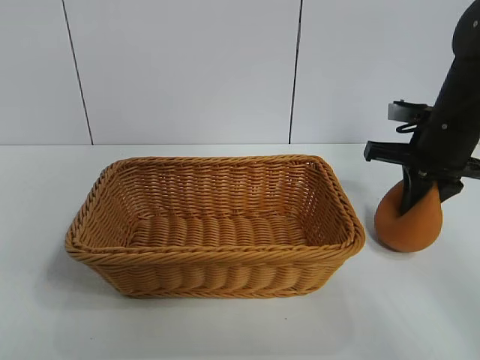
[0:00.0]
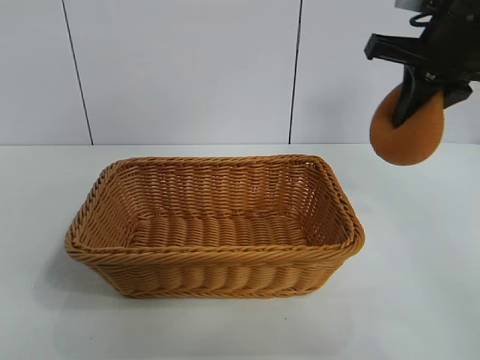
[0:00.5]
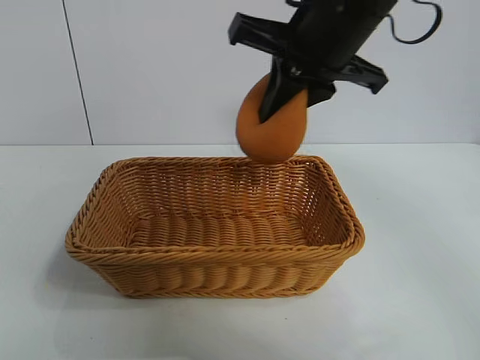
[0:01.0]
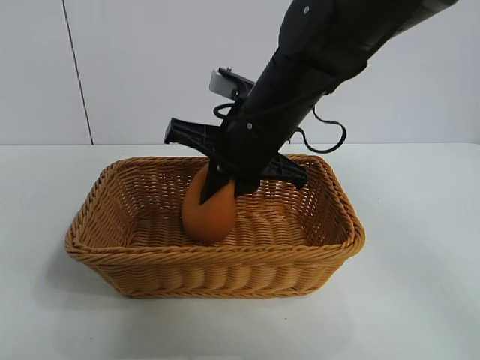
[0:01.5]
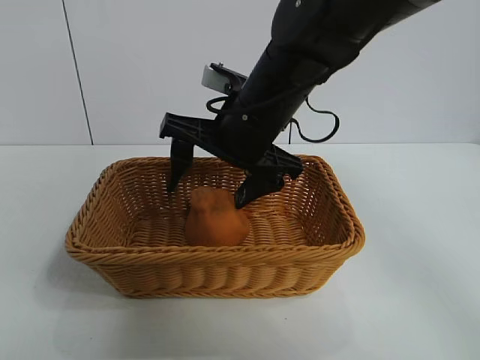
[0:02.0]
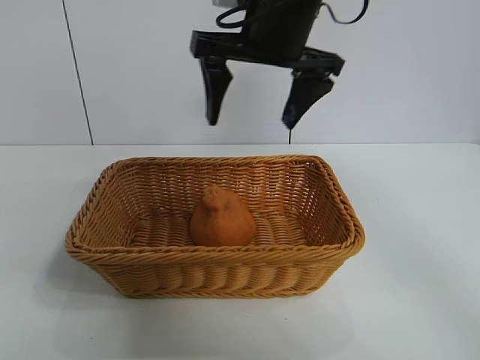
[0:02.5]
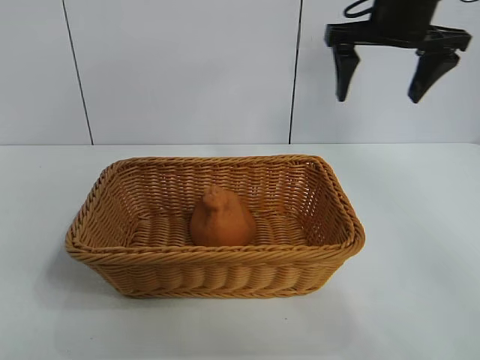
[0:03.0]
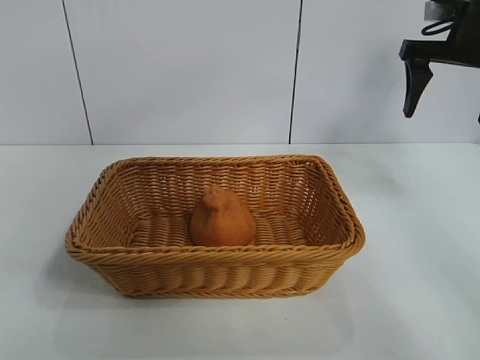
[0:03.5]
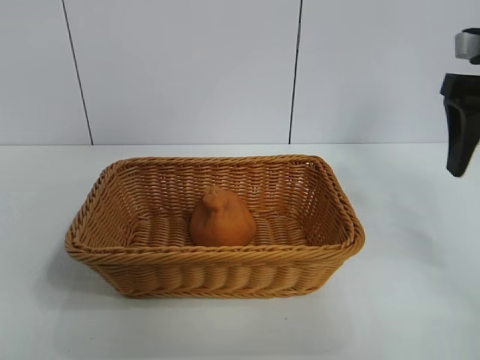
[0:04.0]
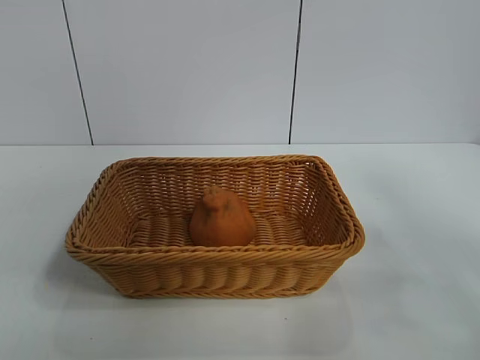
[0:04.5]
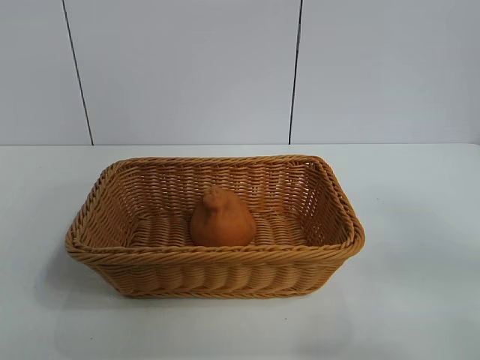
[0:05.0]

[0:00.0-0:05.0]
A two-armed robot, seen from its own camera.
Task of the whole recording: pick up the orange and put it into the basket.
Step, 0:00.5 to 0:02.0: Place the orange in the basket with right gripper.

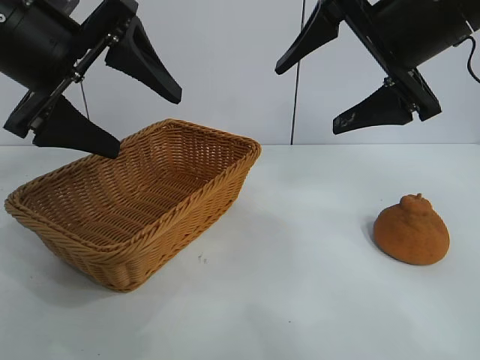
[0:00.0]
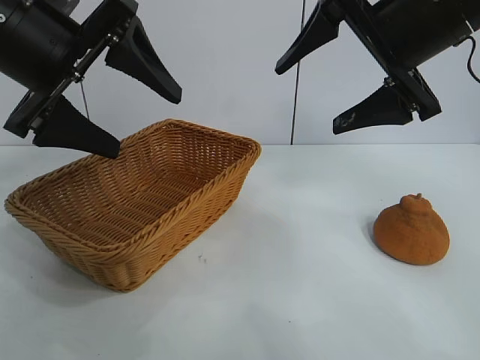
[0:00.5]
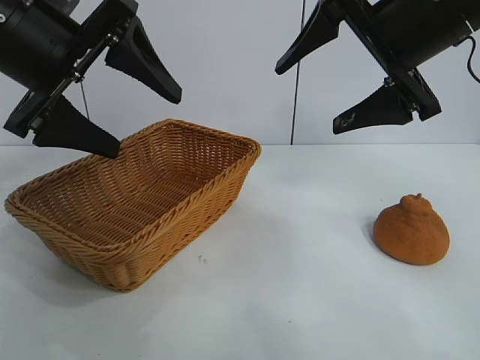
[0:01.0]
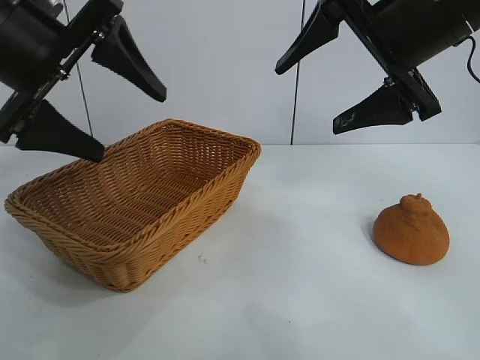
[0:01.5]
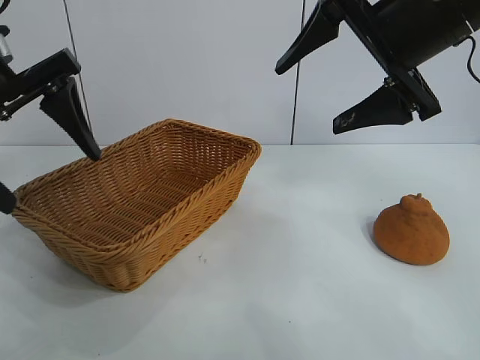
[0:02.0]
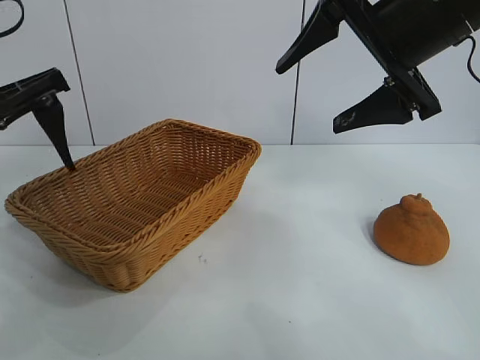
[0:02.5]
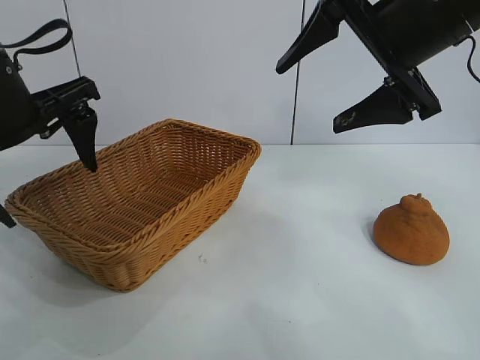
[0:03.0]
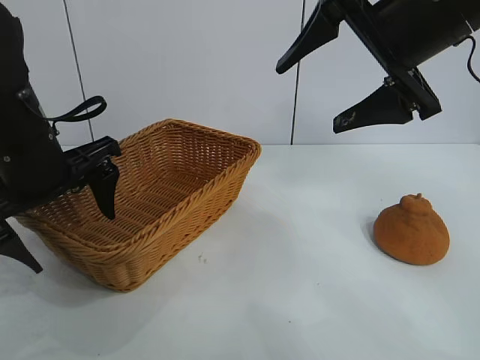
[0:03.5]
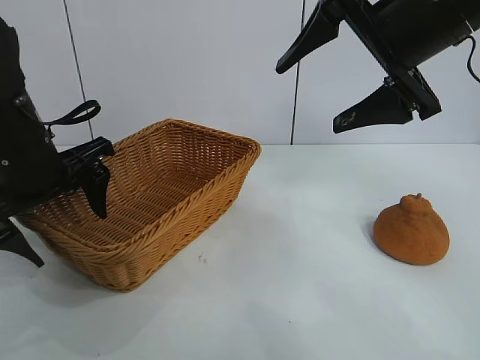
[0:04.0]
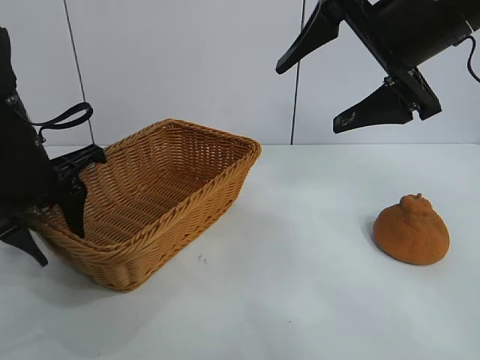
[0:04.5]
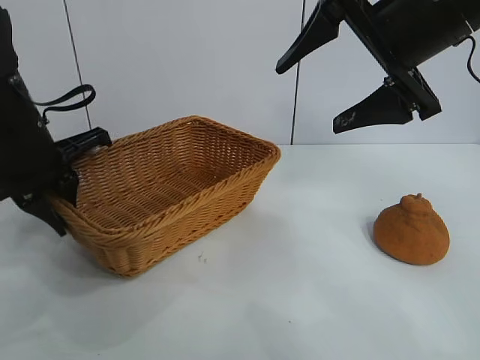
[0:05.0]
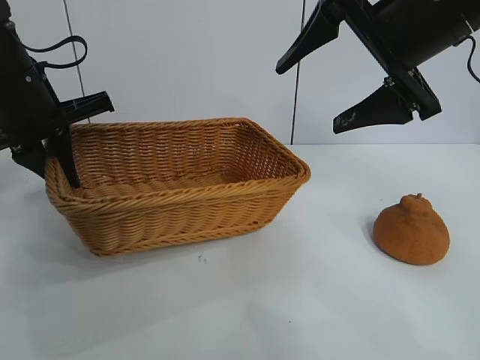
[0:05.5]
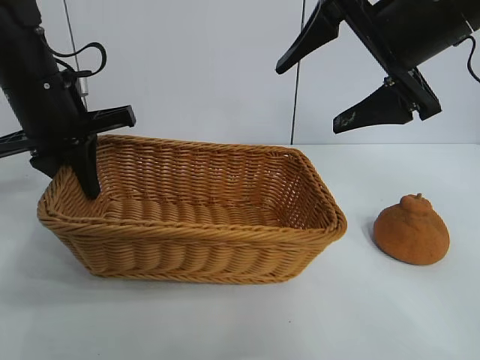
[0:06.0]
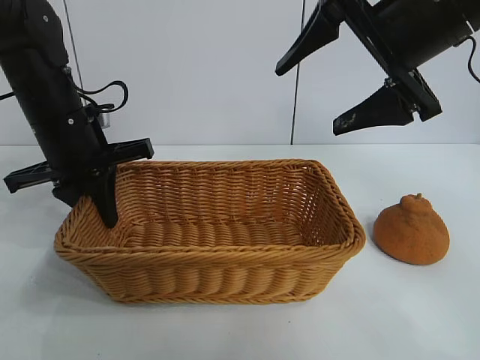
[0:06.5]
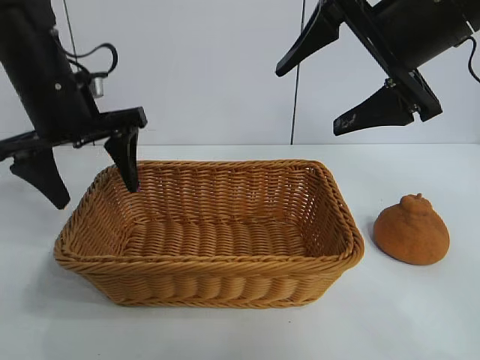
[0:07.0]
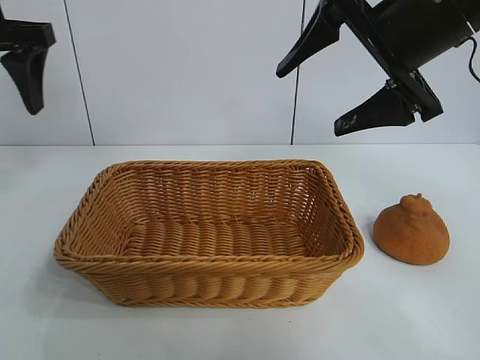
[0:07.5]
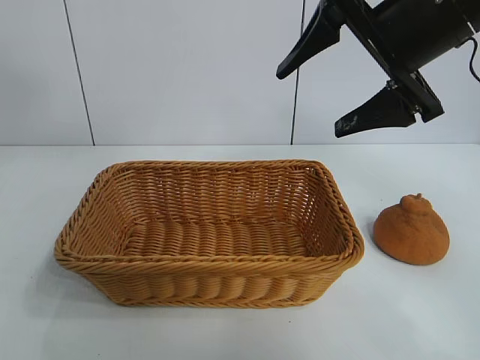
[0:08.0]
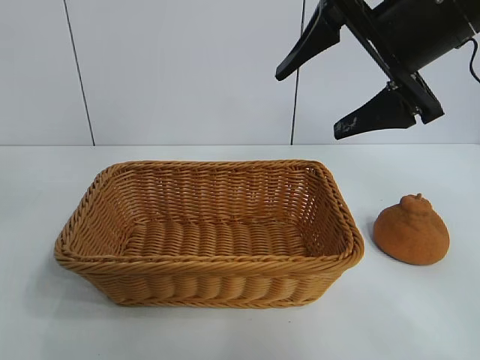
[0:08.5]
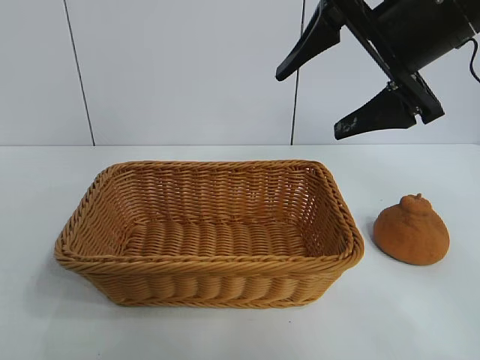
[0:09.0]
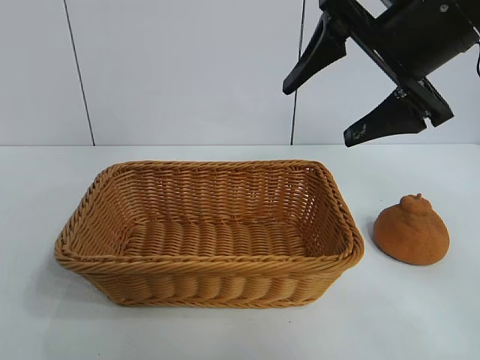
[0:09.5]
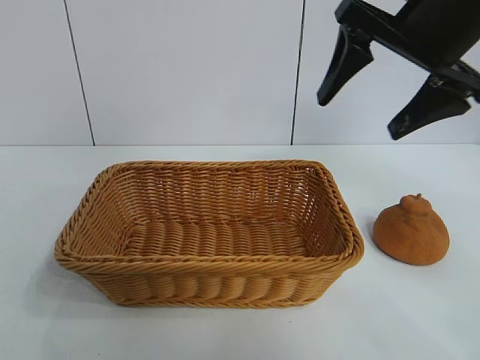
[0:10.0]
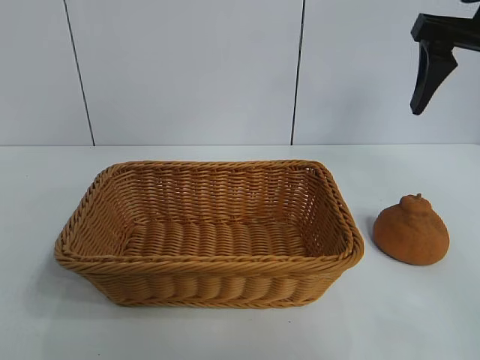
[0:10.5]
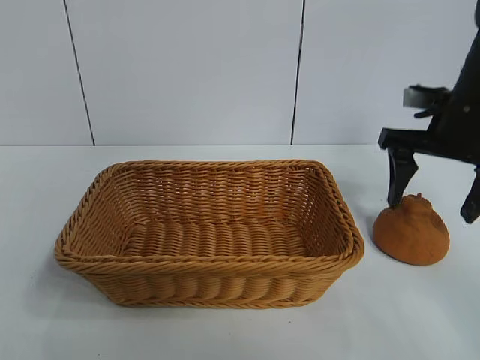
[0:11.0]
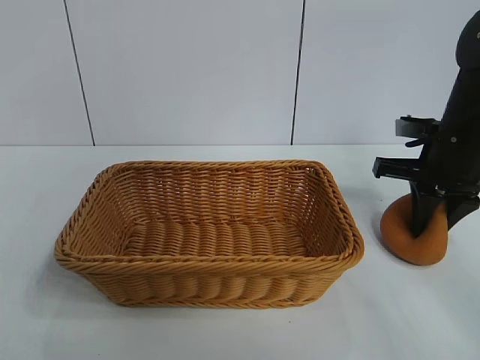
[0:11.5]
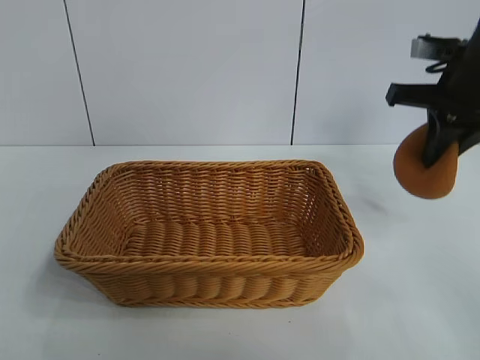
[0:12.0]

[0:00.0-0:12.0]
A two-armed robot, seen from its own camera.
Task of the whole recording: pick up the orange and put it into the basket.
Step, 0:01.0 to 0:04.5: Grasp the basket with left gripper.
Step, 0:05.0 to 0:06.5: Place the basket in the center of view with left gripper.
Step, 0:07.0 to 0:11.5: Grasp the orange with right gripper.

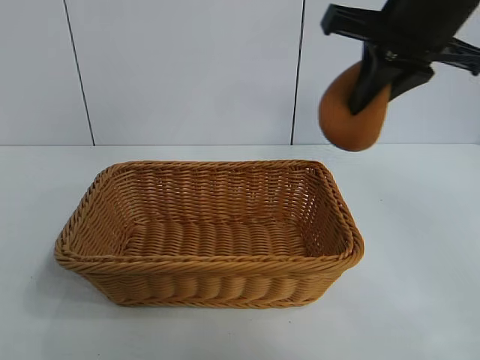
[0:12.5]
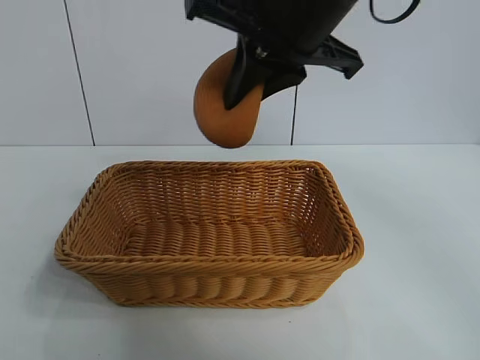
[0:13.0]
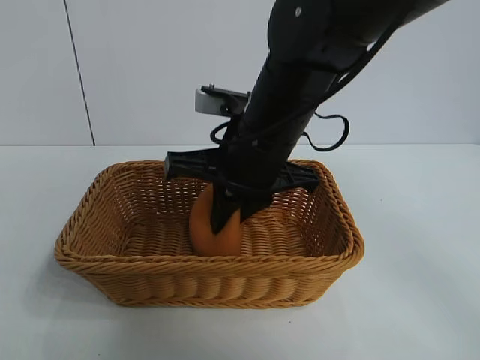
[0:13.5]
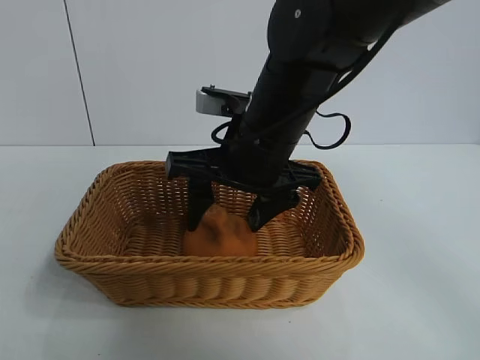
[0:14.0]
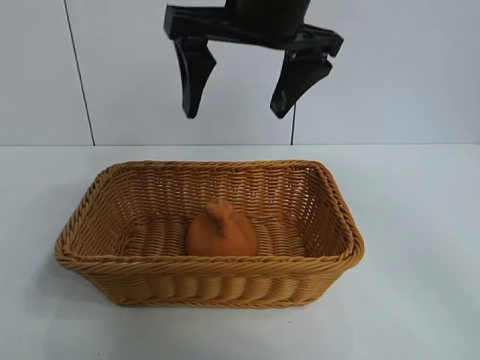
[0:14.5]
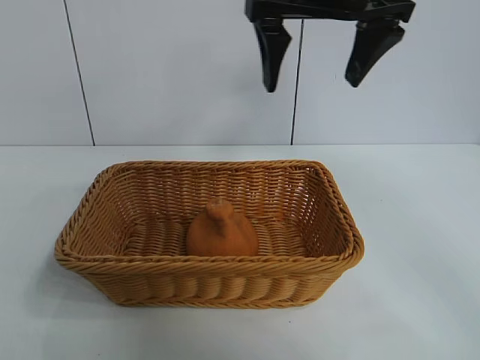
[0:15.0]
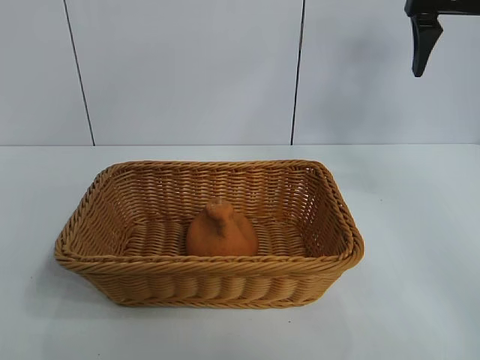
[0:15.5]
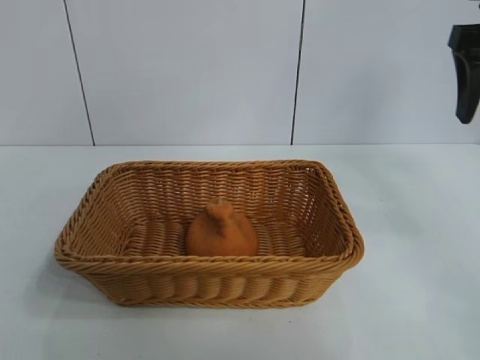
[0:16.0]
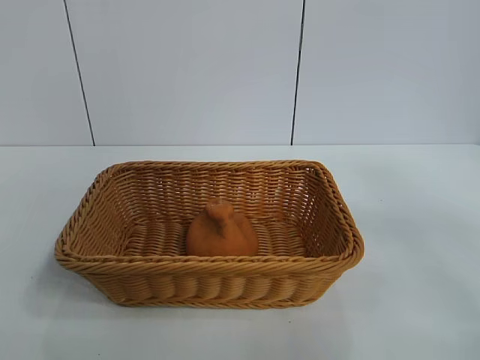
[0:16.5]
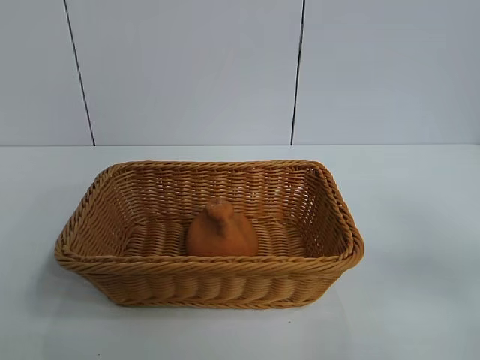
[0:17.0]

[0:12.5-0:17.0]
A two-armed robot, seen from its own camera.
Task of the whole recording: pick up the orange and put it into the basket.
Step, 0:12.5 to 0:14.0: Place the orange in the basket with right gripper.
